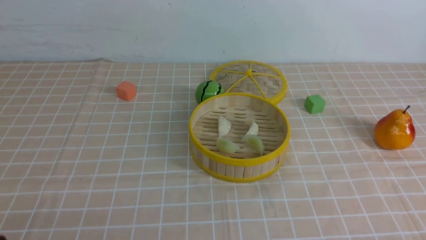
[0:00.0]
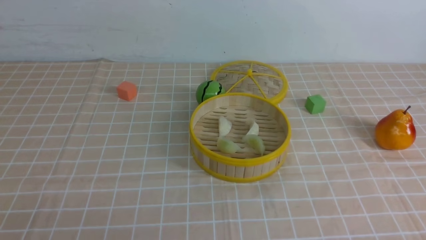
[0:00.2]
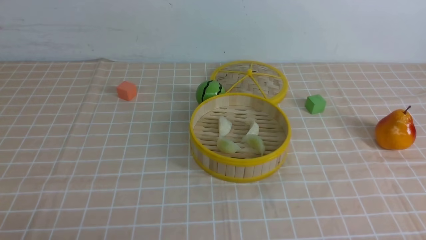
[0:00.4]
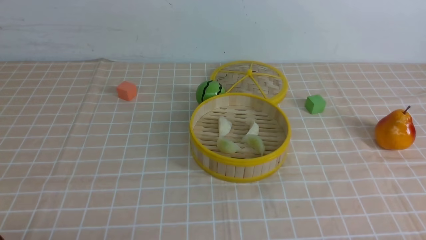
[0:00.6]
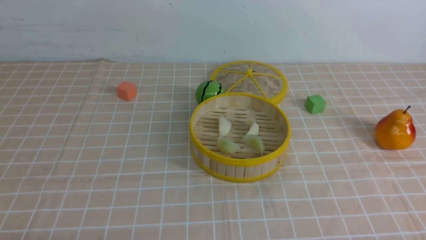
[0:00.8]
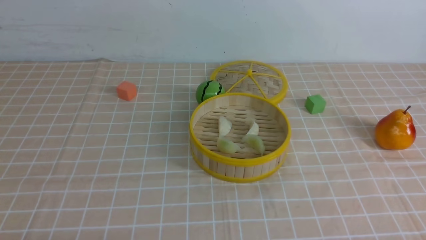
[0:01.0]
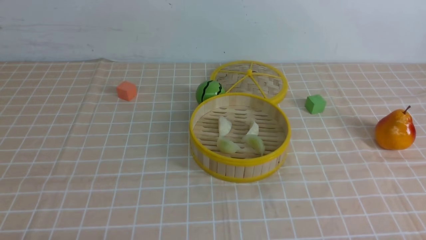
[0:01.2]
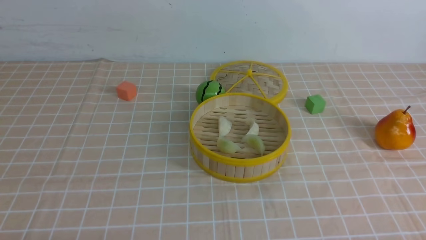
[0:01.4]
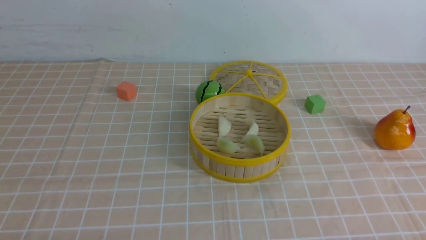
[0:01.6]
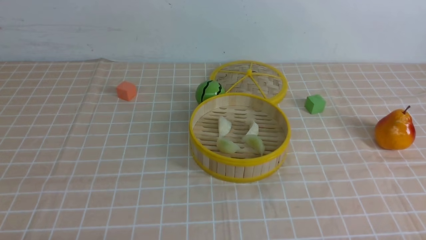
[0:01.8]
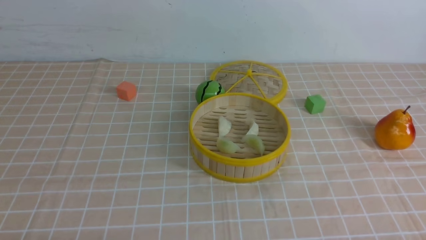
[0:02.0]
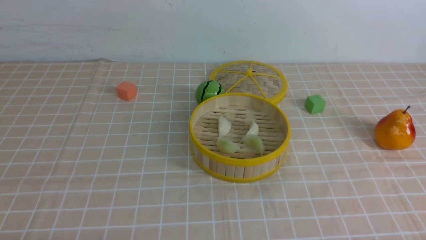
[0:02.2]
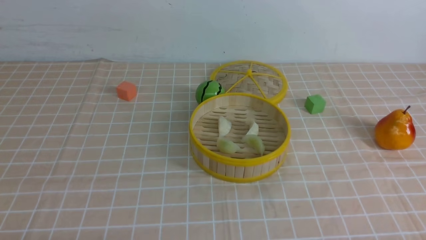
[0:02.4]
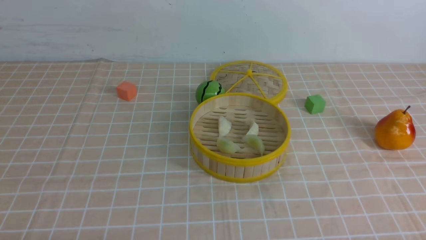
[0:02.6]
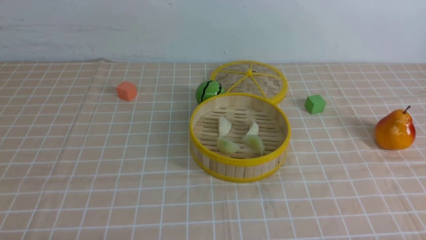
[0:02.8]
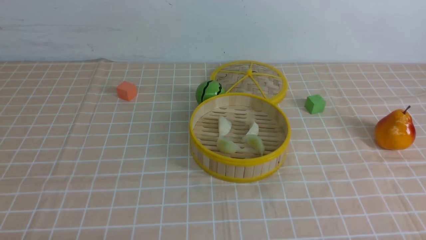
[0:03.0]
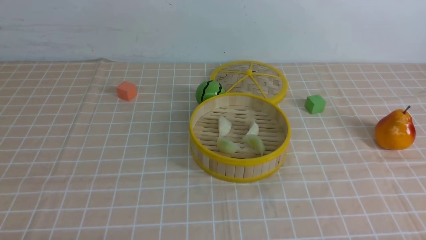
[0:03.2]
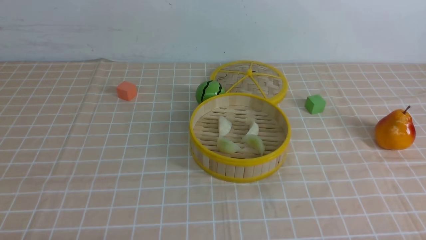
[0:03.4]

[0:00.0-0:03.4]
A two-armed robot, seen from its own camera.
Task of the whole recording: put the dumplings into the steamer on the table with the brown tablecloth.
0:01.6 to 0:03.4: Both grippers stay about where they are.
